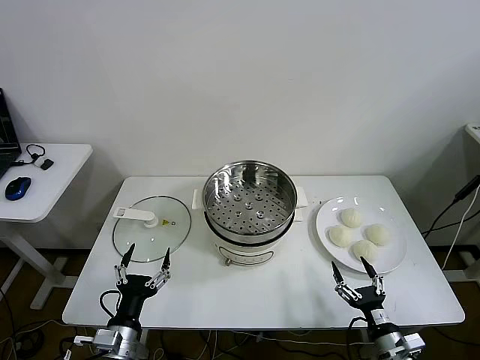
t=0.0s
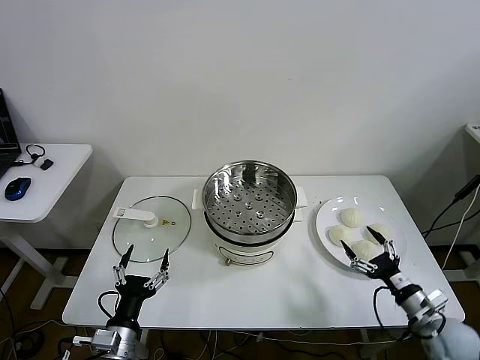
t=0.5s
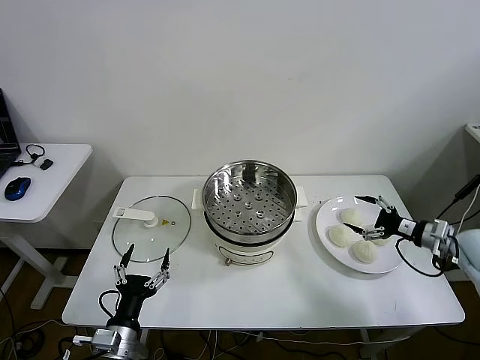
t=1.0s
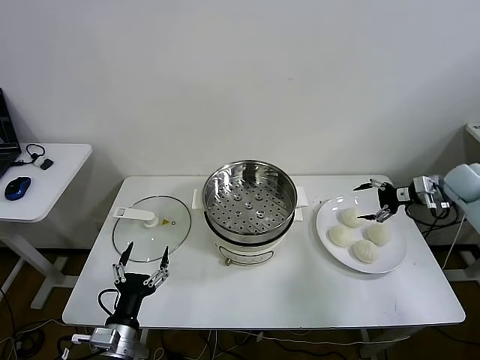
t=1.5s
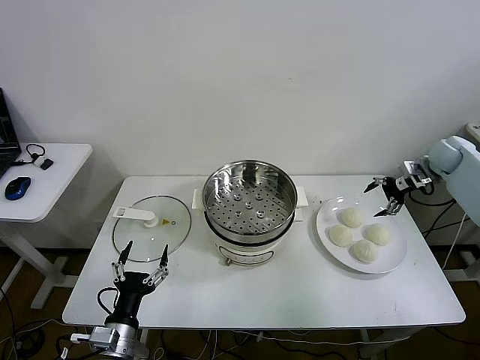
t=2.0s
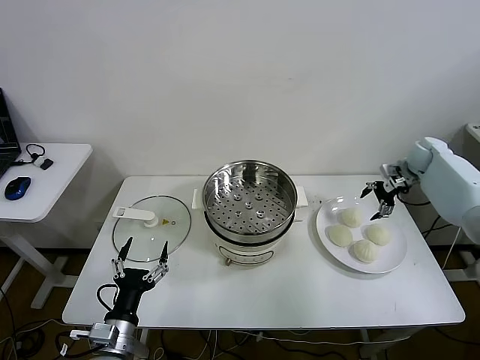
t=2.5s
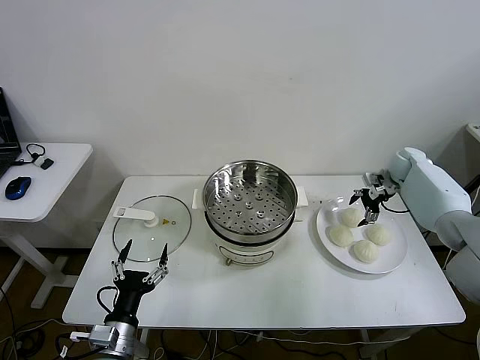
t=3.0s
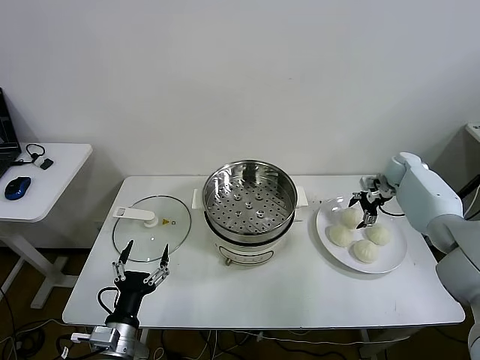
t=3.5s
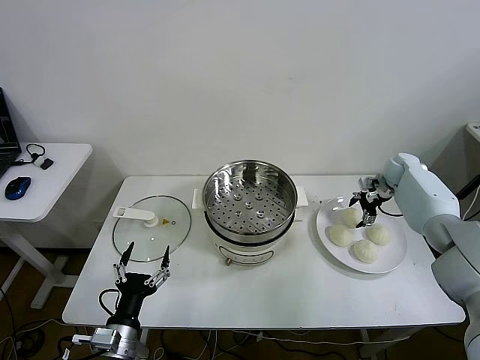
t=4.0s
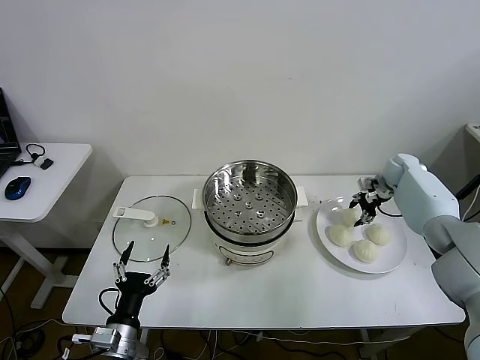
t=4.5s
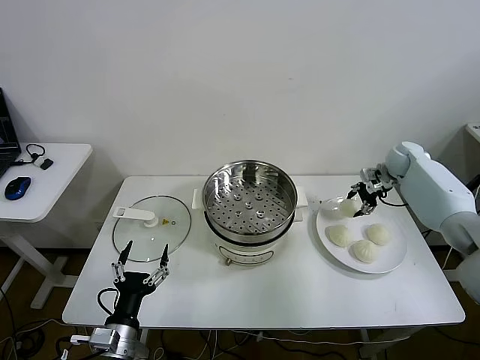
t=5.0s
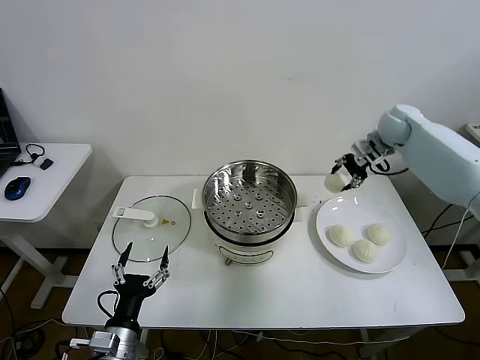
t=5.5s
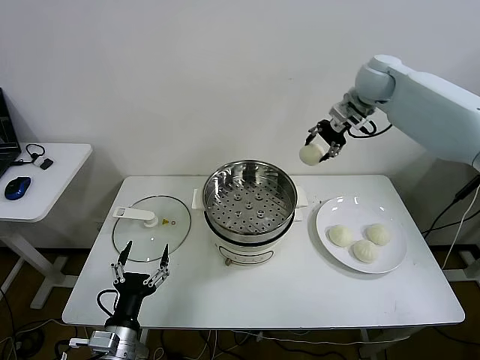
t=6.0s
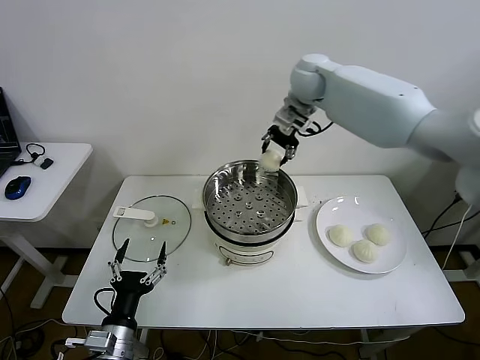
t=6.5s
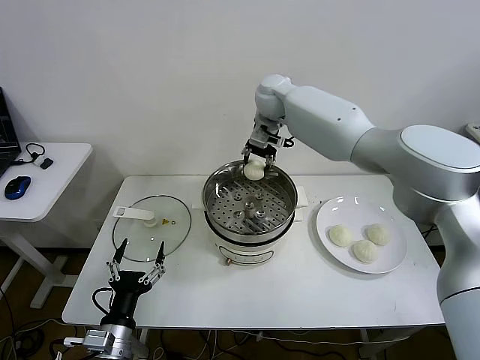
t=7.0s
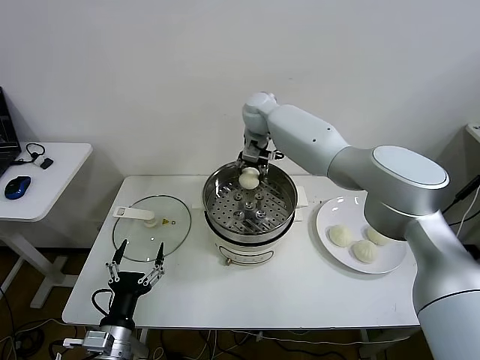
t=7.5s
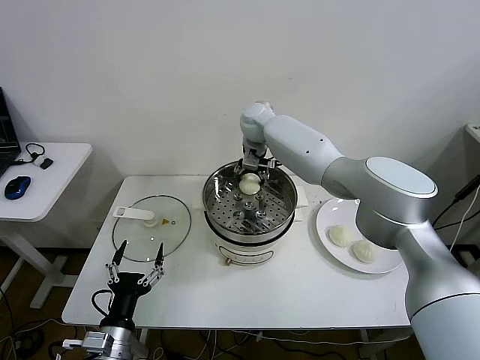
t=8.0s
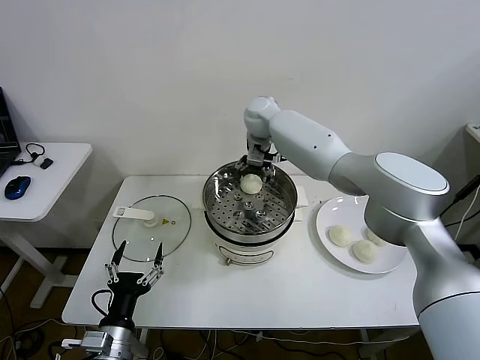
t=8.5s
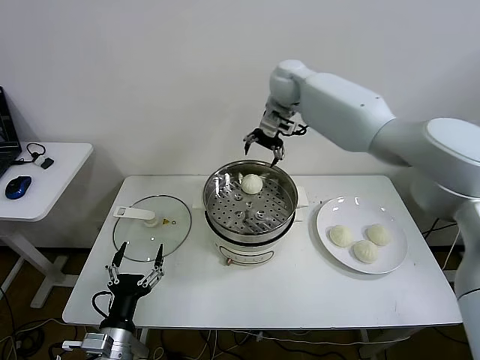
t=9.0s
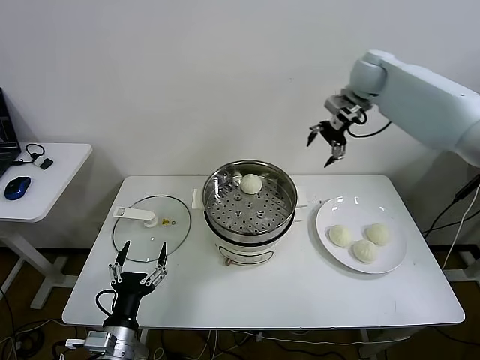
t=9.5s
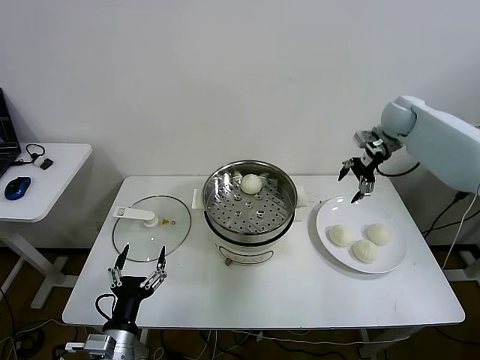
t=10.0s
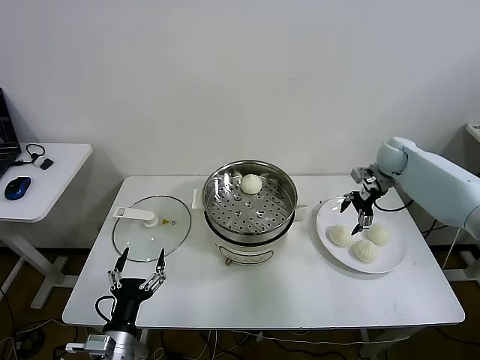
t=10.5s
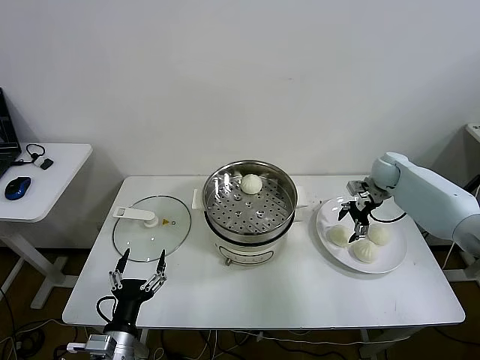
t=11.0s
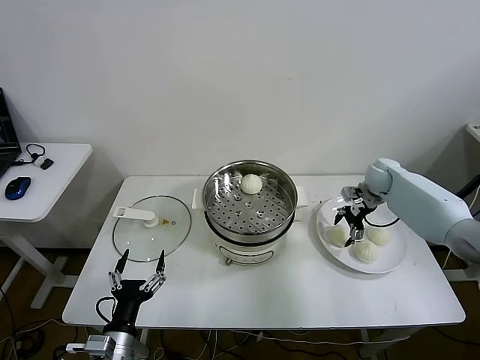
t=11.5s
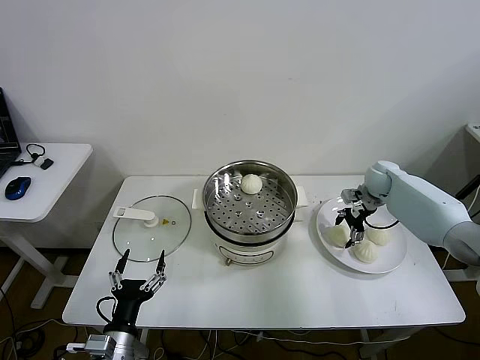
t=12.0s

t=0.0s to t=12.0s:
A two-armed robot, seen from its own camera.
Step, t=0.0s to t=4.0s: Grasp the baozi in the plate with right gripper.
Step, t=4.5s to t=8.0s: Place the baozi on the steamer with right gripper.
t=2.0s to t=4.0s: The right gripper moves downward and to the left, approximately 10 cm.
t=4.0s to t=6.0s: The right gripper is displaced upward and to the left by approximately 35 cm, and closes up.
t=6.0s to t=8.0s: The right gripper moves to the left and downward, approximately 25 cm, and opens its fingers.
t=8.0s to t=10.0s: The right gripper shifts about 35 cm to the right.
t=10.0s to t=12.0s: The right gripper is displaced downward by about 15 cm.

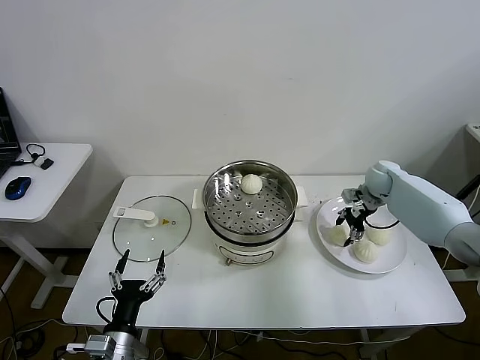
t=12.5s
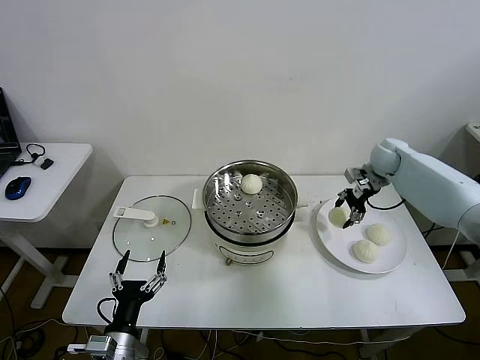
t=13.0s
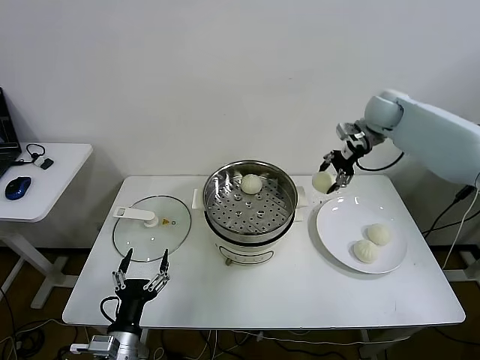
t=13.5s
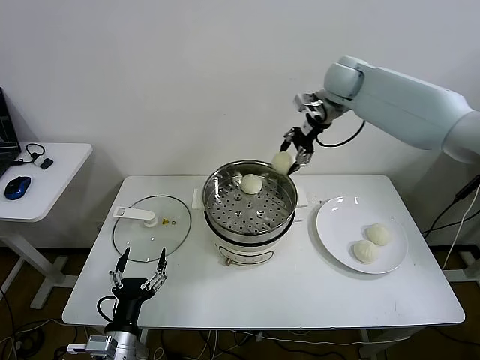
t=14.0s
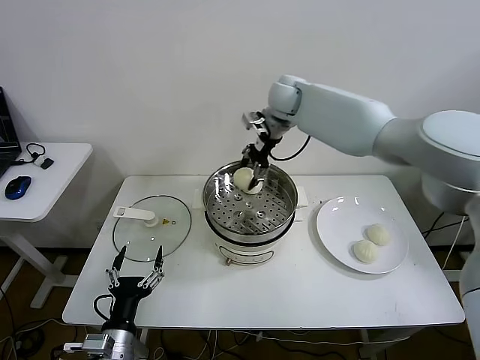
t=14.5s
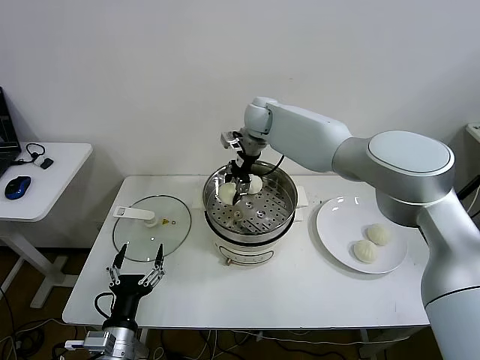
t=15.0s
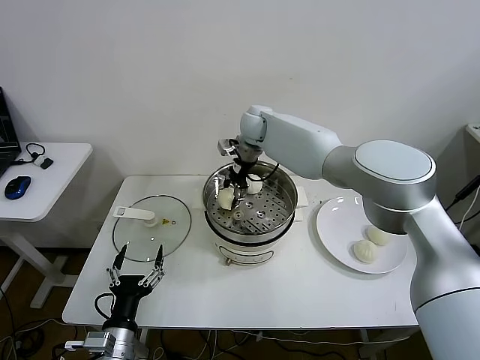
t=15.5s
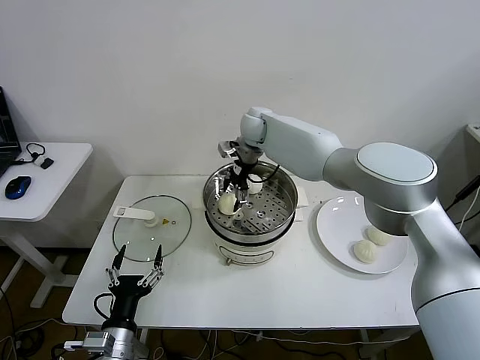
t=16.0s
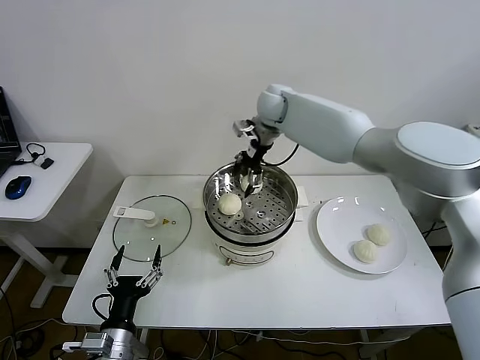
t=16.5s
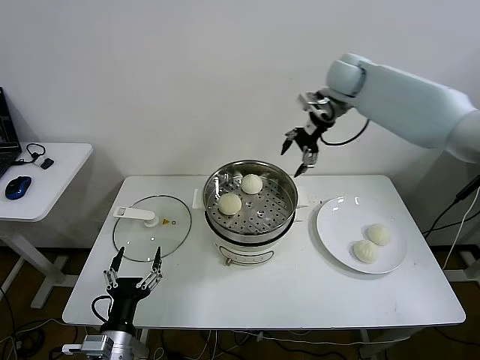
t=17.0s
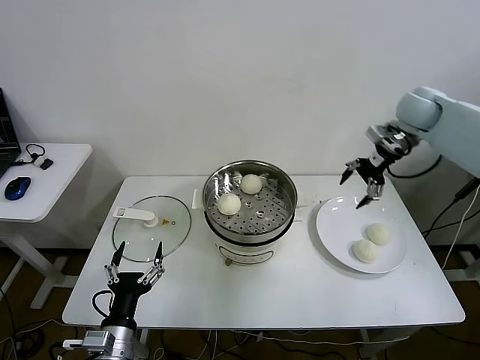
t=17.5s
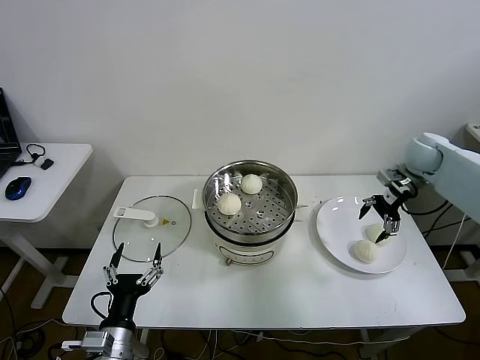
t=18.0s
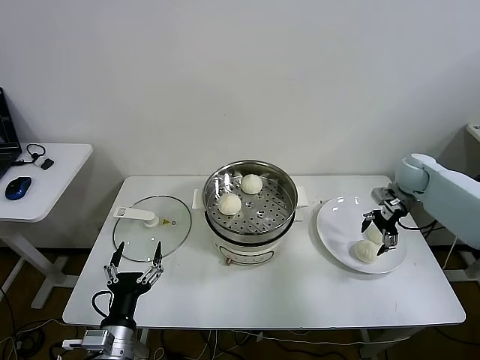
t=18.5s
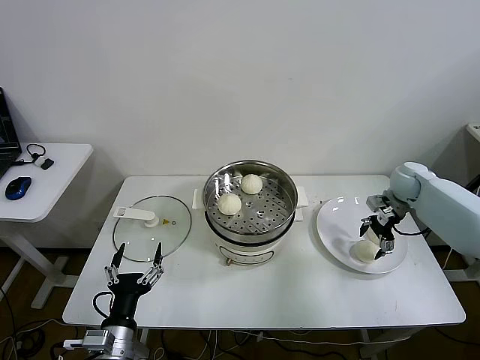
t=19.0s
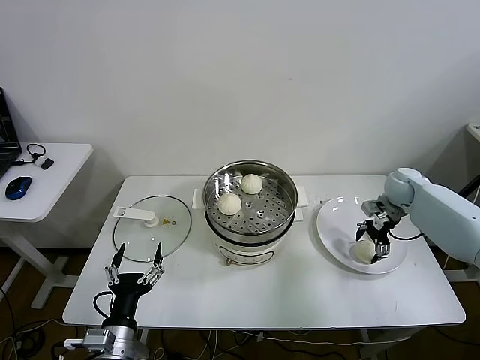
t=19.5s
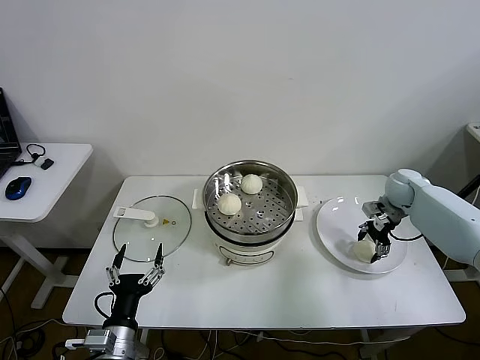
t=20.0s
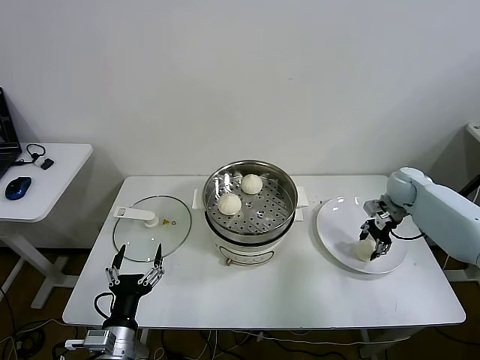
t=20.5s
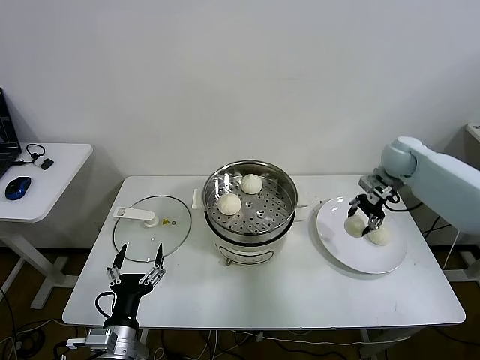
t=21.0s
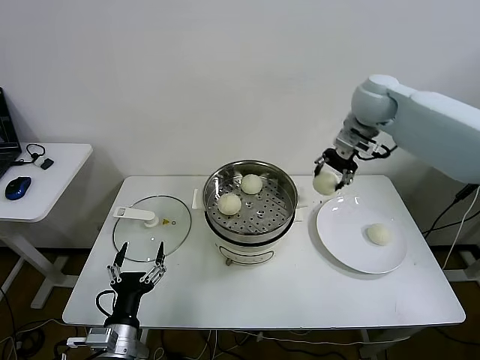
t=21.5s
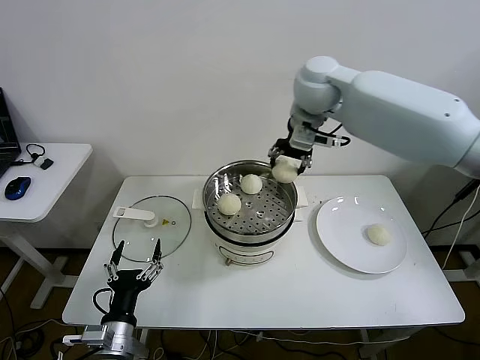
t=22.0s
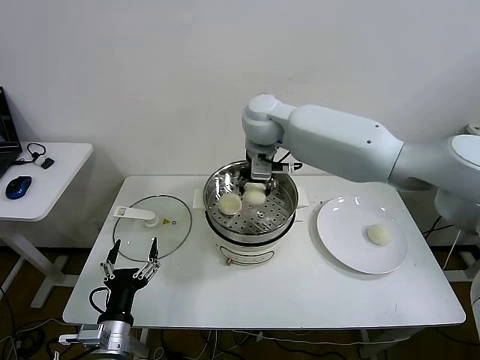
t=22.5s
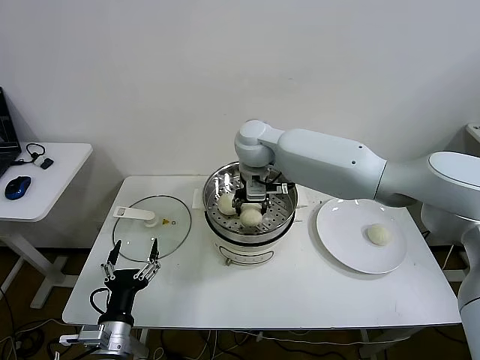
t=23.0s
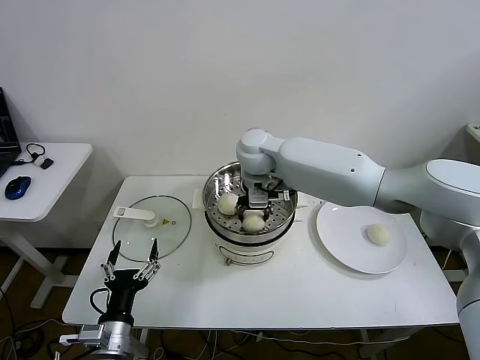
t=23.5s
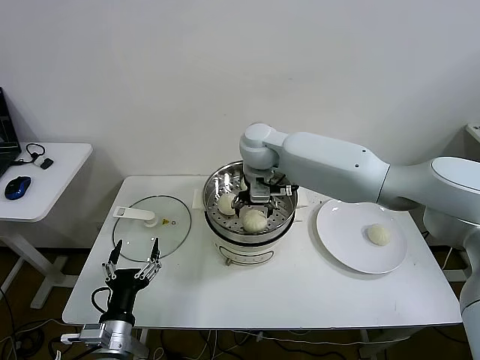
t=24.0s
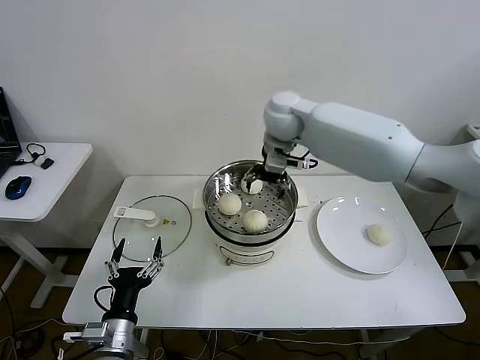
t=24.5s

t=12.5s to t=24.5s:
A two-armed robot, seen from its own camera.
Step, t=12.5s to t=16.0s: Place the baozi on the steamer with right gripper.
Step, t=16.5s to t=20.0s: Grasp the baozi in the plate with right gripper.
Step, t=20.5s to t=24.0s: Place the baozi on the steamer with right gripper.
t=12.5s to t=14.5s: The right gripper shifts some 35 cm to the left and upward.
t=14.5s to t=16.5s: The right gripper opens.
t=16.5s to t=18.5s: The right gripper is displaced to the right and downward by roughly 40 cm.
t=18.5s to t=20.5s: The right gripper closes up.
t=20.5s to t=22.5s: The right gripper travels to the left and upward by roughly 40 cm.
t=22.5s to t=24.5s: The right gripper goes approximately 5 cm to the right, goes downward and returns, about 5 cm each way, and opens.

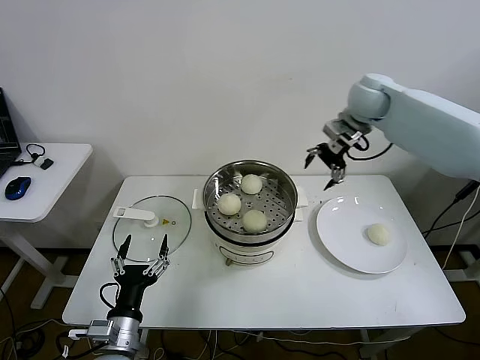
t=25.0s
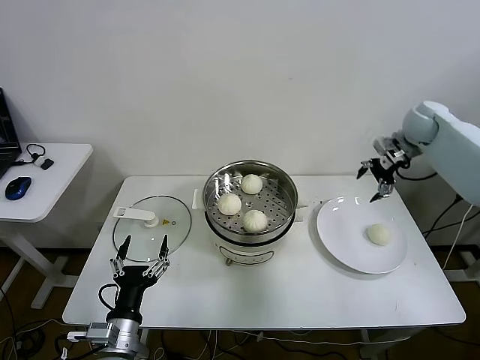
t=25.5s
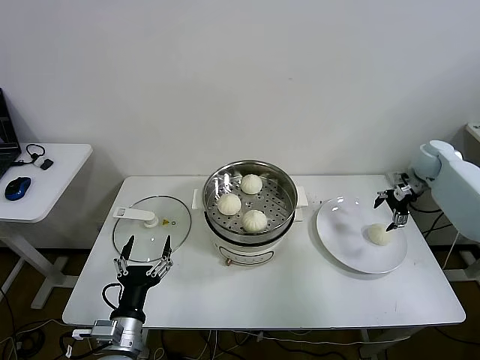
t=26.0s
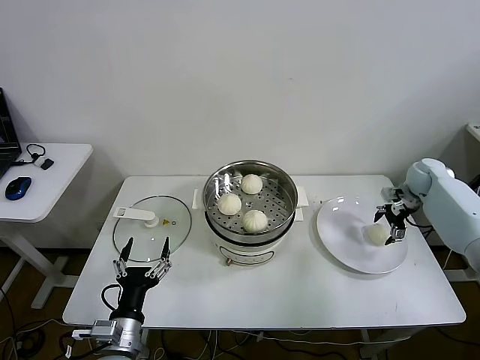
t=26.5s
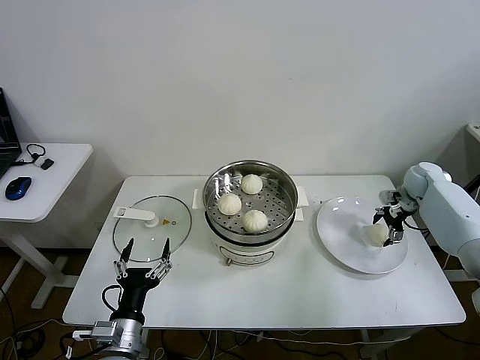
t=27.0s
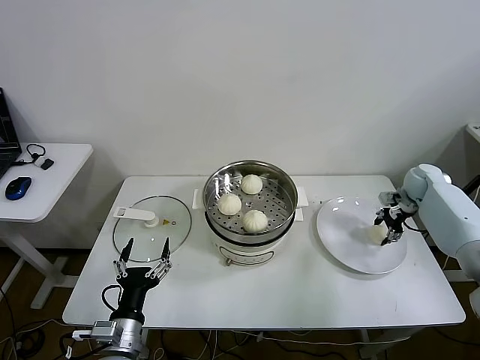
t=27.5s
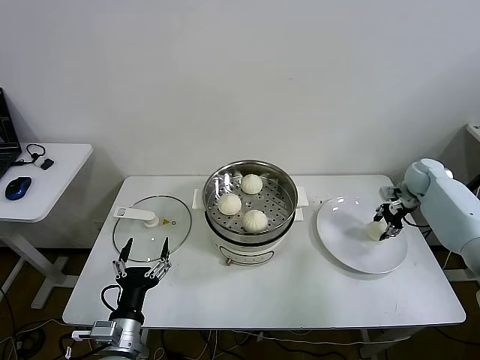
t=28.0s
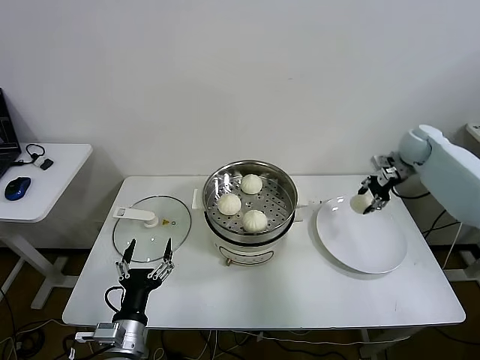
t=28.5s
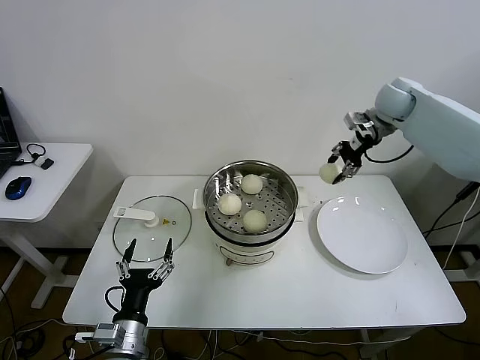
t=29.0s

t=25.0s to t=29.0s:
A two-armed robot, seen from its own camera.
Step, t=25.0s to t=27.5s: Grasp the baozi in the plate with right gripper.
t=25.0s to t=27.0s: The right gripper shifts roughly 30 cm downward and to the right.
t=27.0s to t=29.0s: The right gripper heads upward and to the left, covering roughly 25 cm, and closes.
